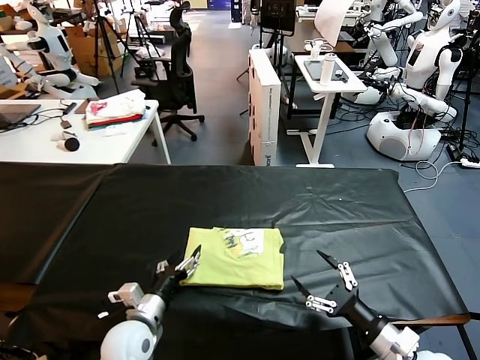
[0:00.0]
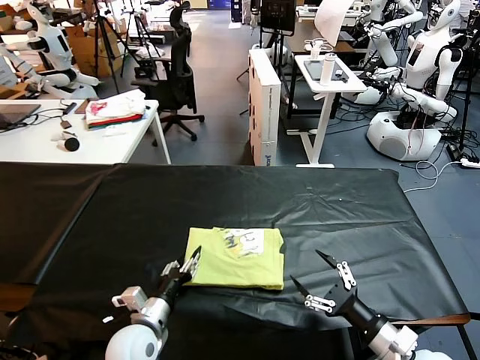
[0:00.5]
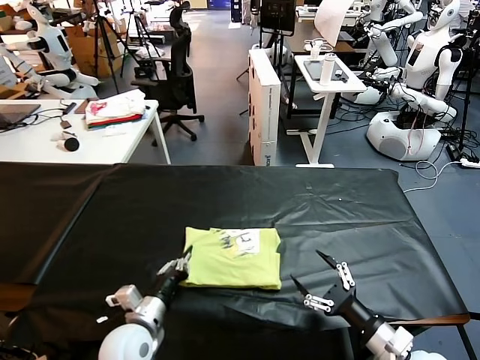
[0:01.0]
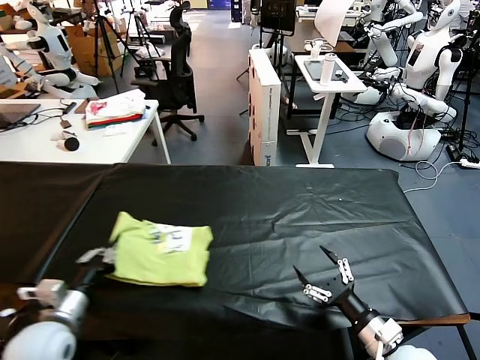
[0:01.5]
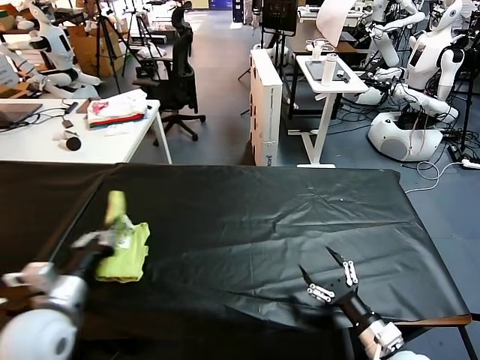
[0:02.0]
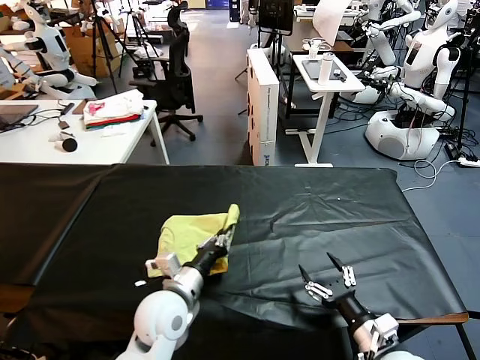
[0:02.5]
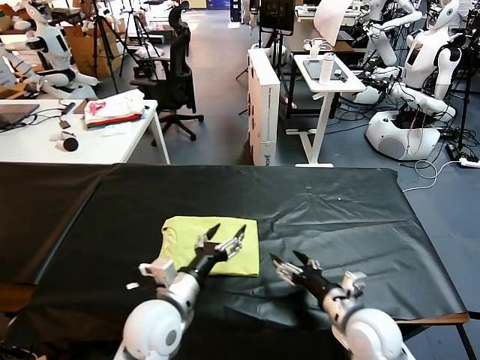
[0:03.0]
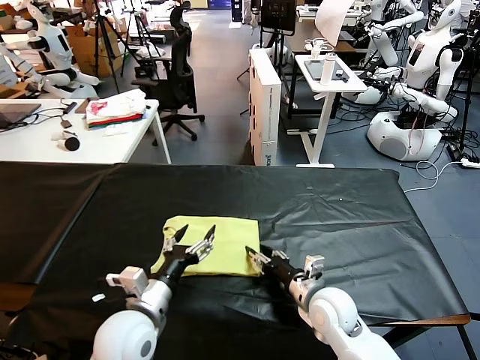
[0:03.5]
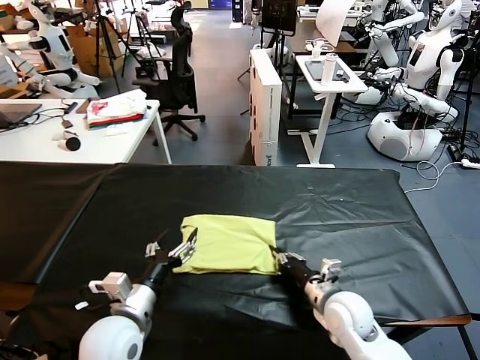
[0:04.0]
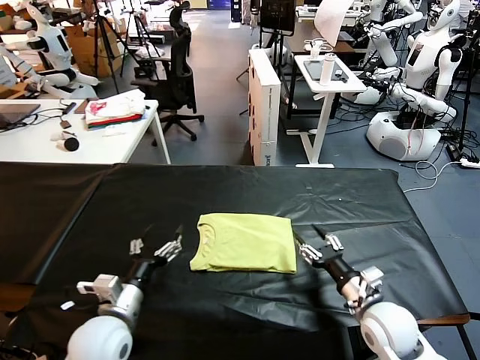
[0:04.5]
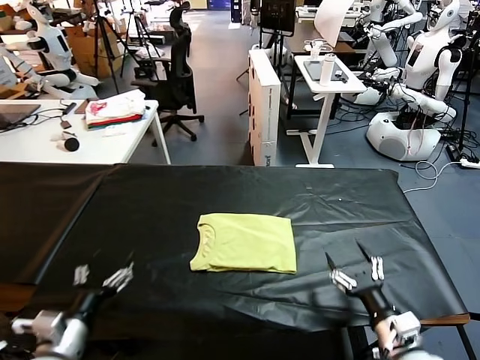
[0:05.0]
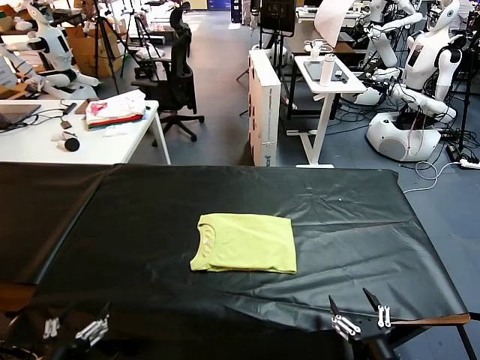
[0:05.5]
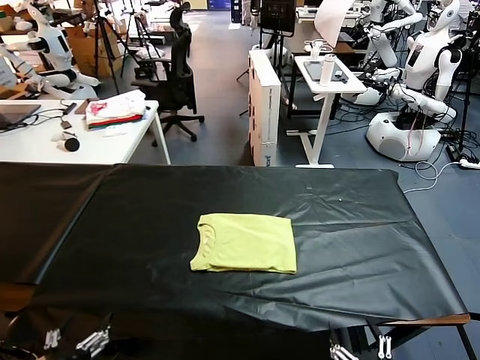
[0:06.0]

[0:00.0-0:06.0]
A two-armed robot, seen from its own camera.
Task of the whole recording: fold and organize the clothes.
Step, 0:00.0 to 0:02.5: Flip the folded clothes over with left gripper.
Step, 0:03.0 to 0:04.5: Drag the clothes to the center of the table.
0:00.0 to 0:02.0: The left gripper is displaced upward and to the left by some 20 cm, and closes its fingers.
0:02.0 to 0:04.0: The left gripper moves to the right and downward, roughly 15 cm, and opens its fingers. The right gripper moves forward and to the left, approximately 15 cm, and closes up.
0:04.0 to 0:06.0: The right gripper moves backward, some 25 cm, and opens its fingers, while the left gripper heads backward and to the left, covering approximately 20 cm.

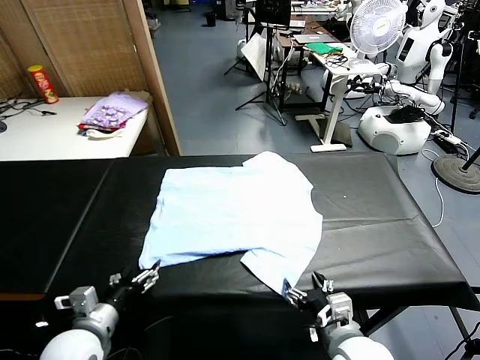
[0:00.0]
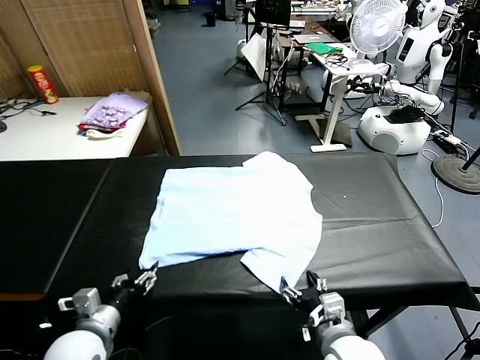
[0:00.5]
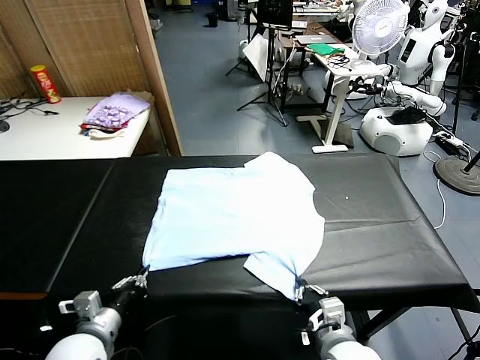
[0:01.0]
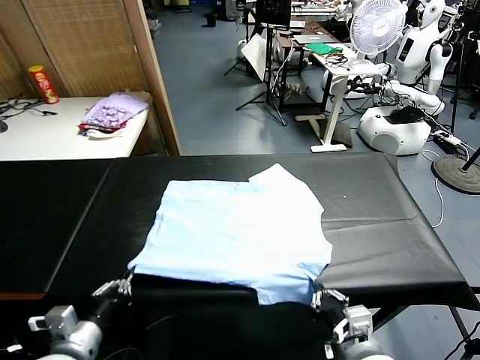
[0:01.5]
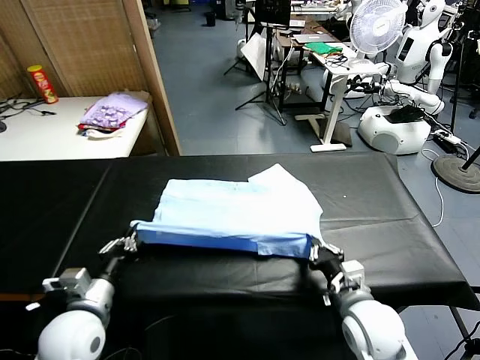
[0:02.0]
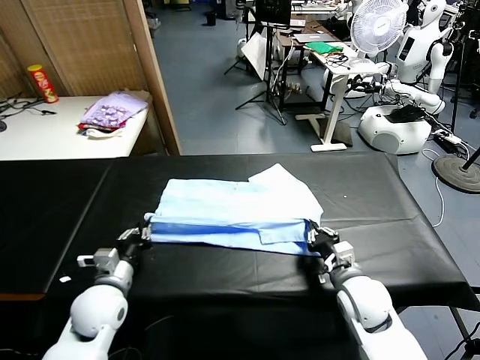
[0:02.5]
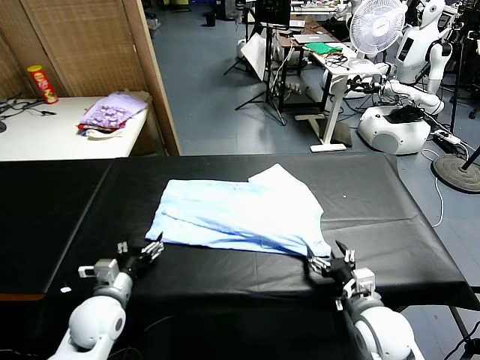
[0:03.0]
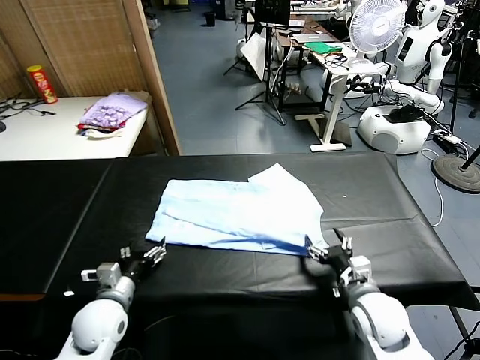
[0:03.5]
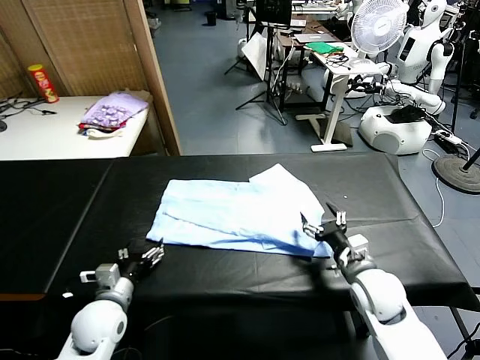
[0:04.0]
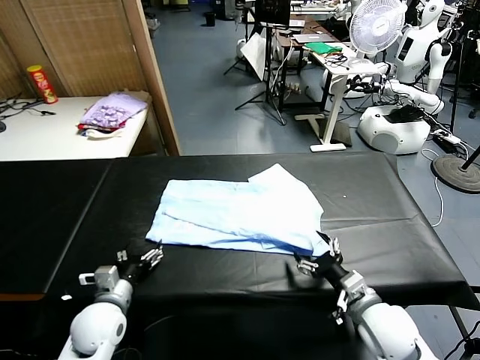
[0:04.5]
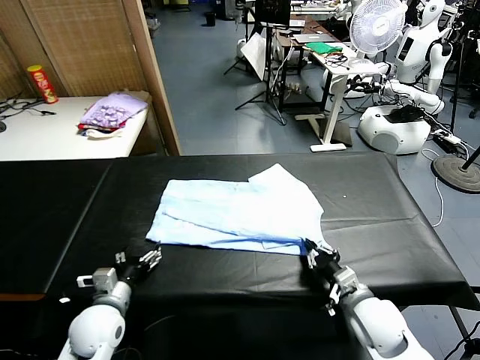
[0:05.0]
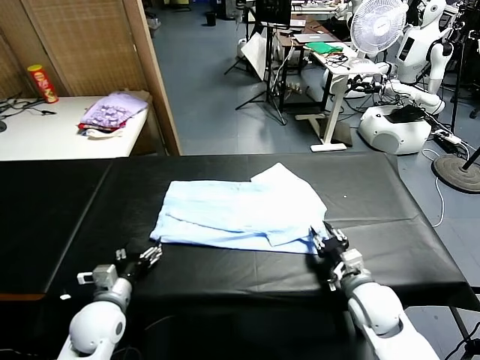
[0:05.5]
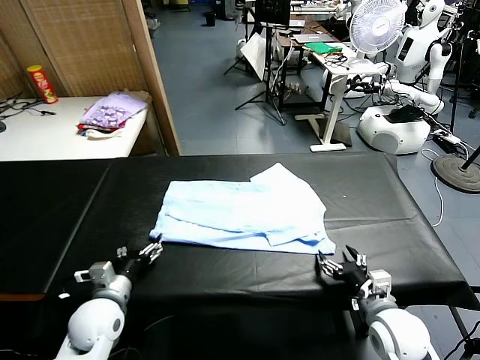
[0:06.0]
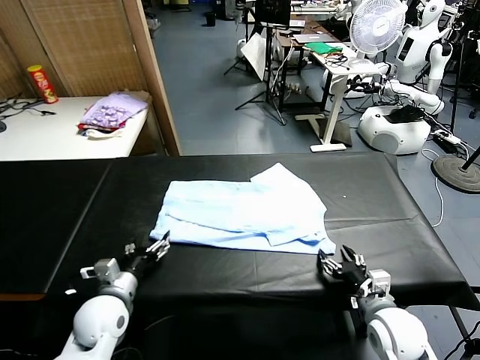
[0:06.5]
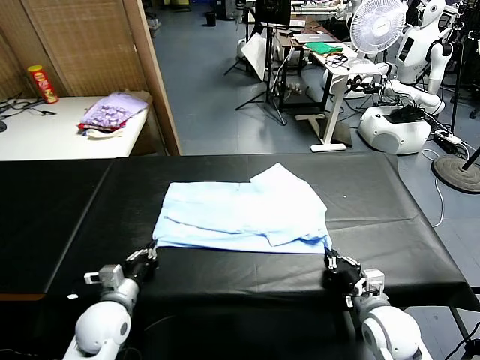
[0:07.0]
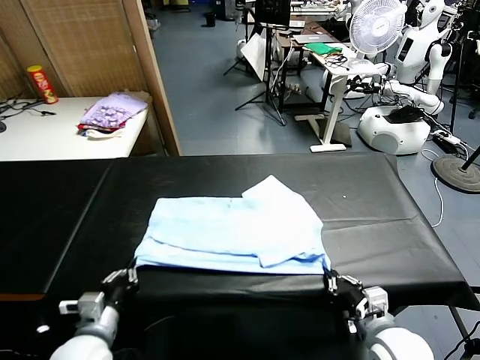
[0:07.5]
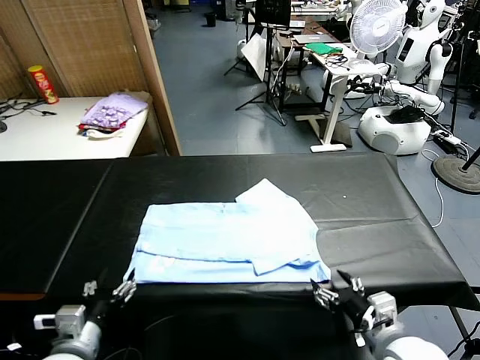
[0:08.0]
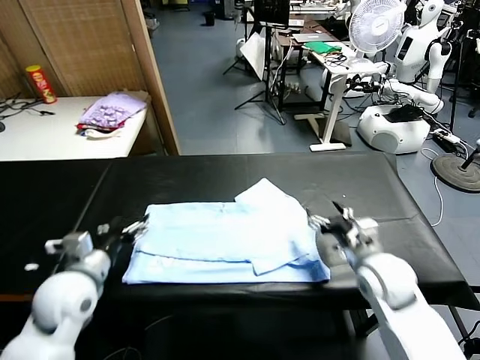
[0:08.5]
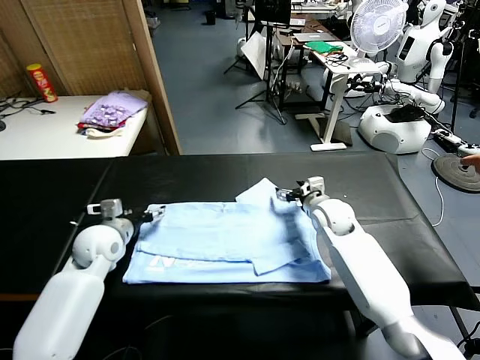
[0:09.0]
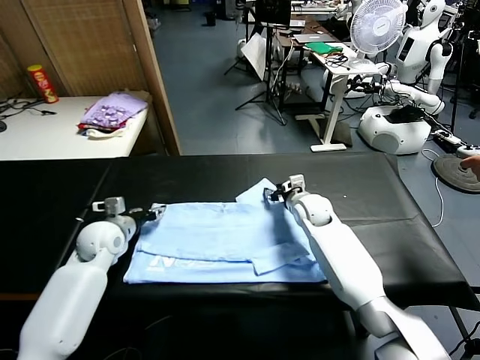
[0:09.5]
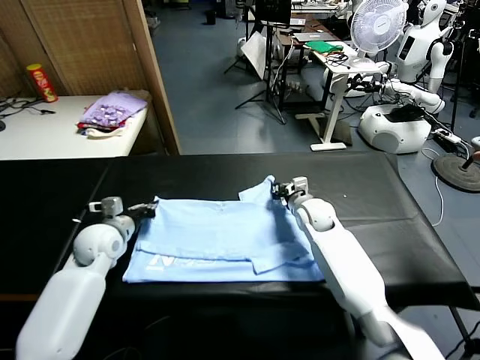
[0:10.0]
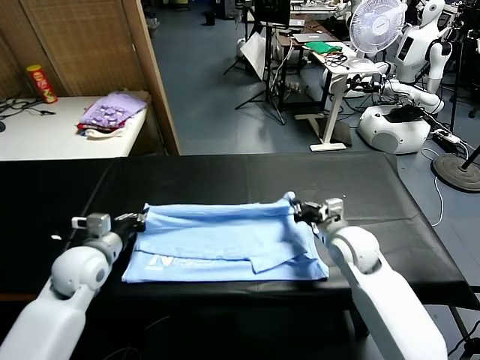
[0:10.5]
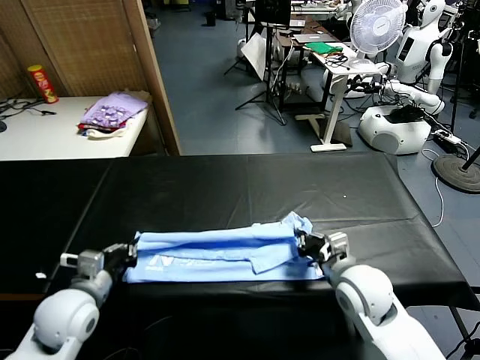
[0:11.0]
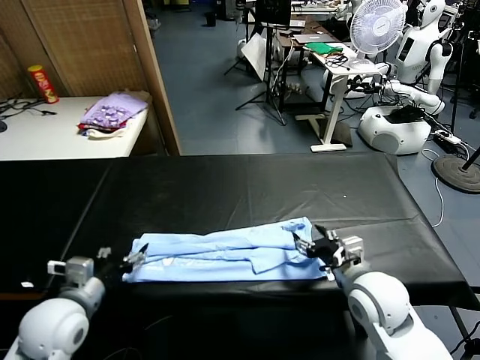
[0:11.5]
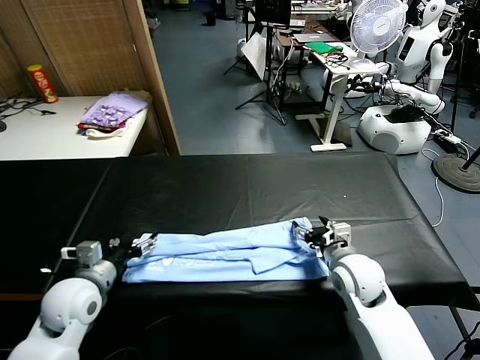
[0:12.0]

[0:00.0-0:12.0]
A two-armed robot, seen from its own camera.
Task of the whole recording: fold and organize the clothes.
Step, 0:00.0 to 0:00.5: use both grippers simultaneously to clamp the lower edge of the clothing fabric.
Step, 0:01.5 to 0:02.5: use both grippers to drag the lower edge of the fabric forward and fold it over the upper edge.
Step, 0:03.0 to 0:07.5: Drag the clothes downward with both gripper.
Step, 0:08.0 to 0:09.5: use both grippers simultaneously to clamp the upper edge of the clothing fabric.
Step, 0:10.0 to 0:11.0: use both grippers to drag the upper edge of the fabric backward and fold it over the lower edge.
0:02.0 to 0:04.0: The right gripper moves forward and backward over approximately 10 cm, changing direction 2 times, and opens. Meanwhile the left gripper shifts some 5 cm downward, and opens up.
0:04.0 to 0:06.0: The right gripper changes place by roughly 5 cm, and closes, then opens again.
0:06.0 to 0:08.0: The right gripper travels upward by roughly 10 cm, and closes and opens again. The left gripper heads backward and upward, covering some 15 cm, and closes, then opens again.
0:08.0 to 0:10.0: Both grippers travel together forward, approximately 30 cm. The right gripper closes up; the left gripper closes up.
0:10.0 to 0:12.0: Both grippers move backward, some 15 cm. The right gripper opens its fingers. The left gripper opens its fingers.

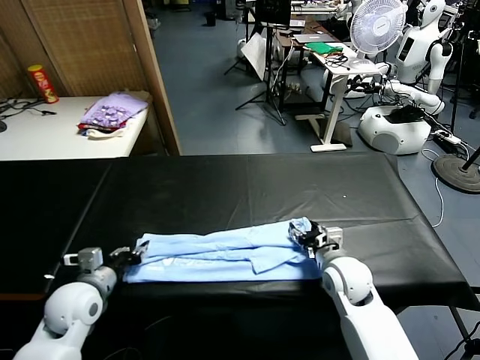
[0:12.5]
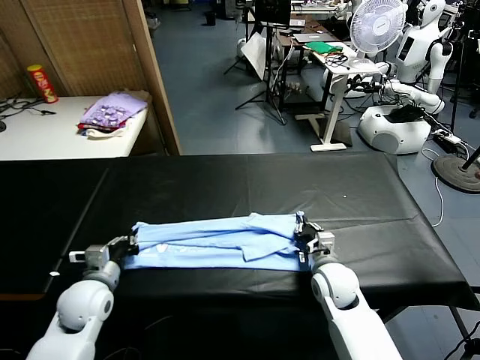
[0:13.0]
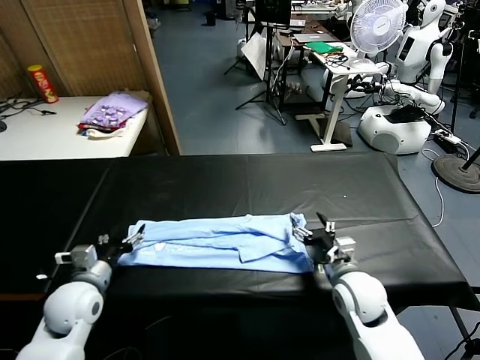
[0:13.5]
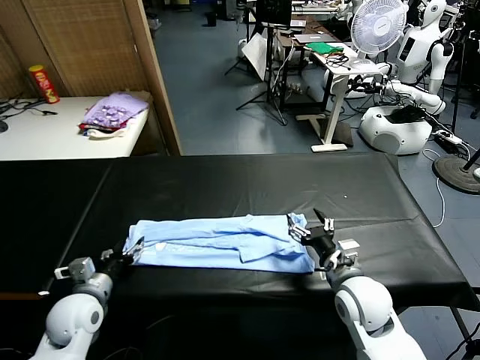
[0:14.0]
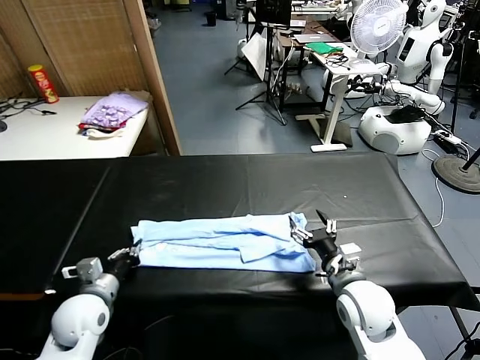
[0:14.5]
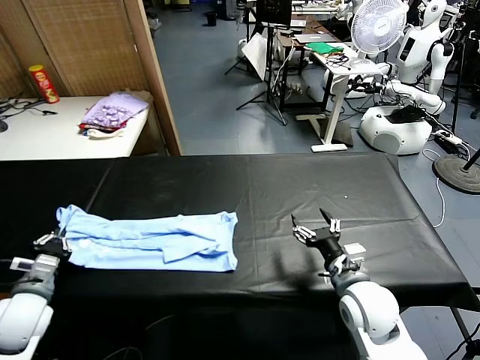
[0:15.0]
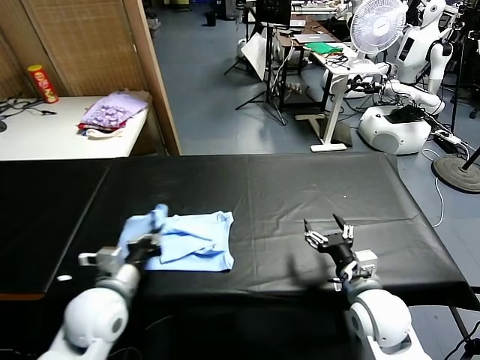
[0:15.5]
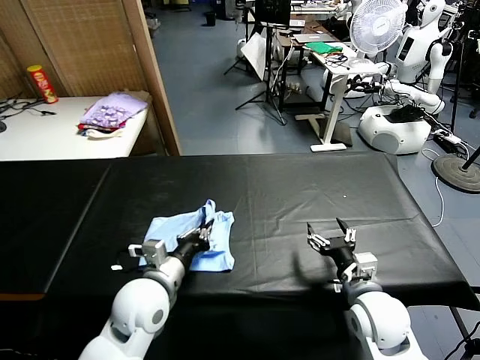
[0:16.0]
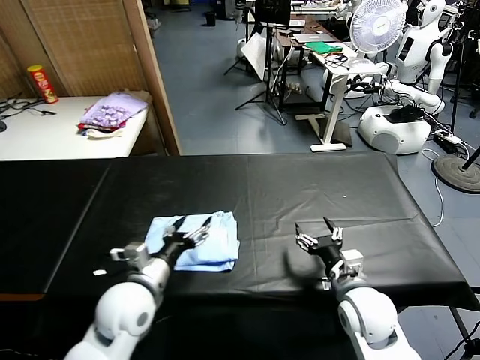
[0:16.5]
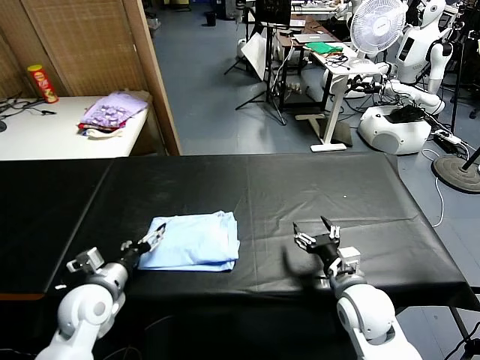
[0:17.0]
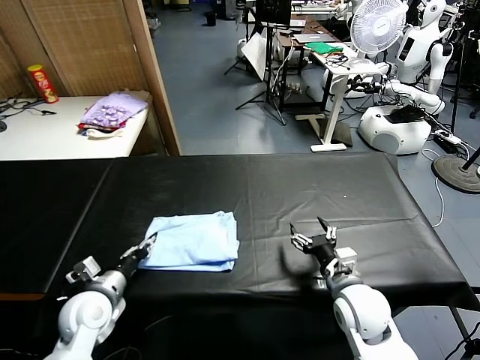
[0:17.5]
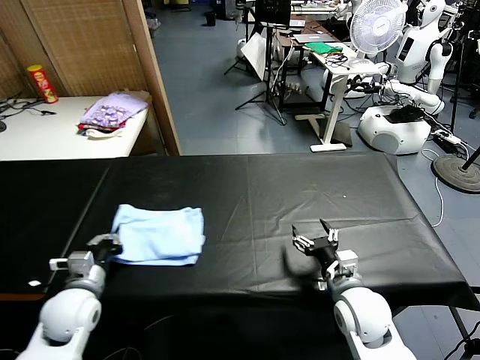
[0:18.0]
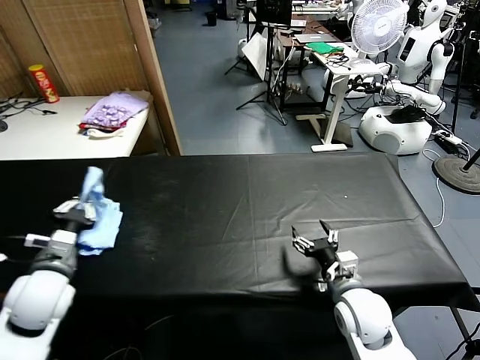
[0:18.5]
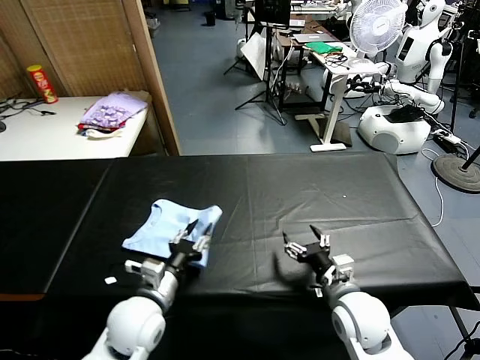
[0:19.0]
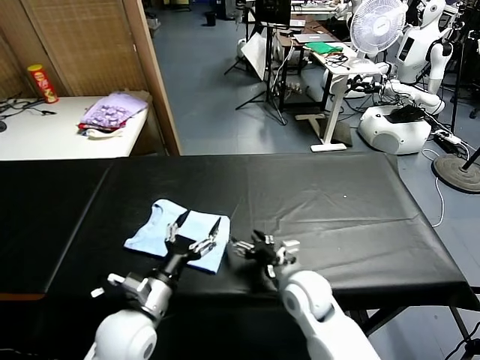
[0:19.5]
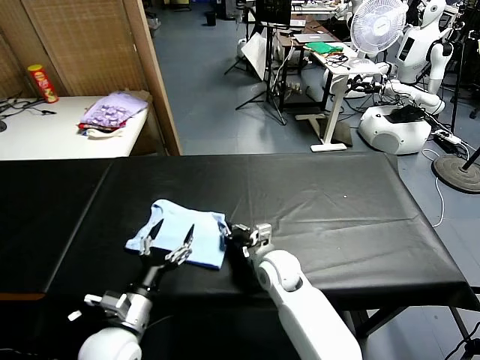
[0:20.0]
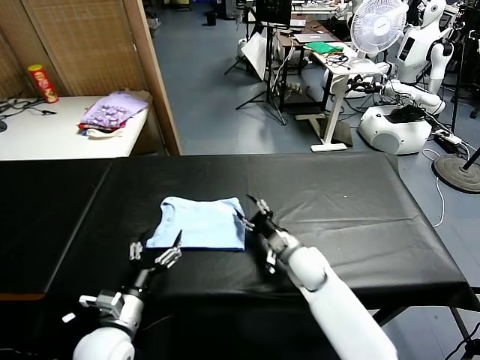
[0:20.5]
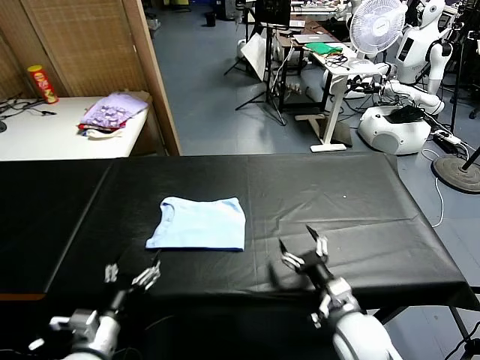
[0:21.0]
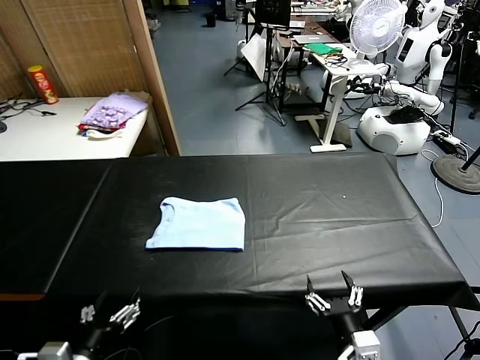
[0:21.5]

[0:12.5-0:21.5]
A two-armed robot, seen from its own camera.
Task of the whole recording: fold and organize the clothes.
Step, 0:12.5 to 0:14.5: use the left gripper to clamp the left edge of the fabric.
Step, 0:15.0 to 0:16.0: use the left gripper to drag the left edge of the fabric to the left and folds it over the right edge.
Step, 0:16.5 to 0:19.0: Flip the folded clothes over with left gripper.
Step, 0:19.5 to 0:20.0: Drag the clothes to the center of the table.
0:12.5 to 0:14.5: The left gripper opens, then closes once more. The right gripper is displaced backward by roughly 5 cm, and opens.
0:14.5 to 0:17.0: The left gripper moves left and right over about 25 cm, changing direction 2 times, and opens.
0:17.0 to 0:19.5: The left gripper travels to the right and backward by some 10 cm, and closes and opens again, while the right gripper heads to the left, covering roughly 10 cm.
0:19.5 to 0:21.5: The left gripper shifts roughly 15 cm backward and to the left. Meanwhile the right gripper moves backward, some 20 cm, and closes and opens again.
